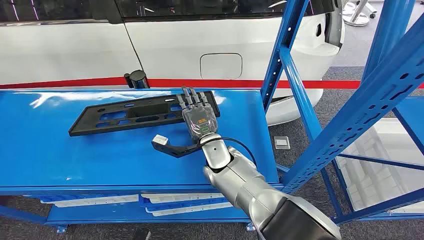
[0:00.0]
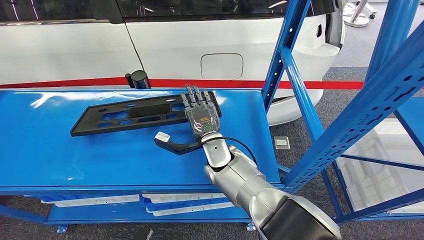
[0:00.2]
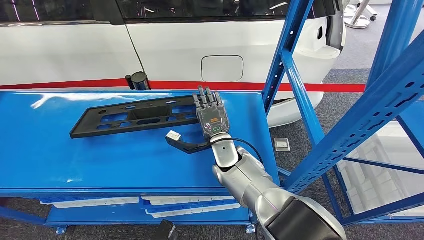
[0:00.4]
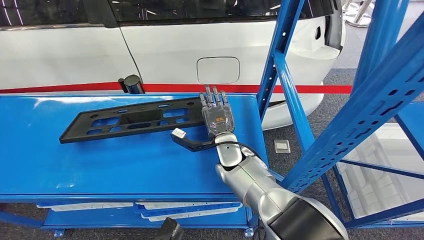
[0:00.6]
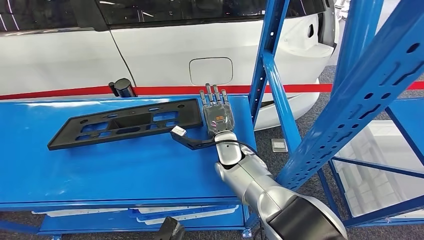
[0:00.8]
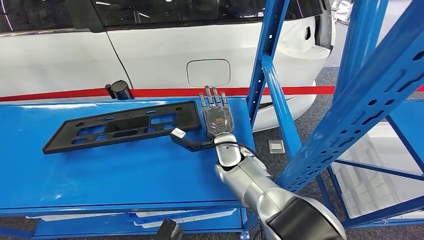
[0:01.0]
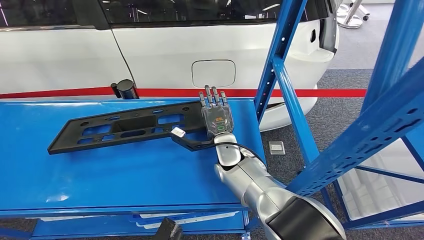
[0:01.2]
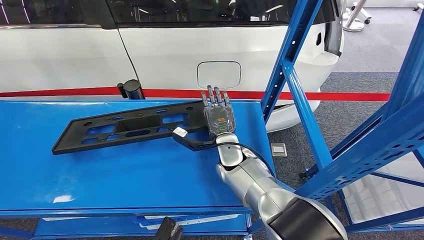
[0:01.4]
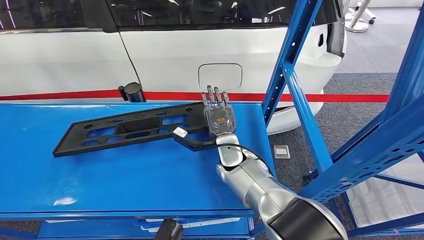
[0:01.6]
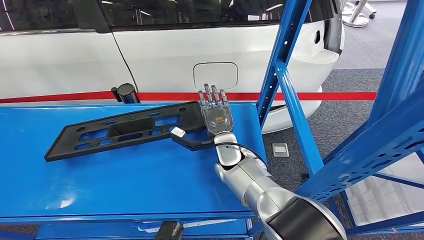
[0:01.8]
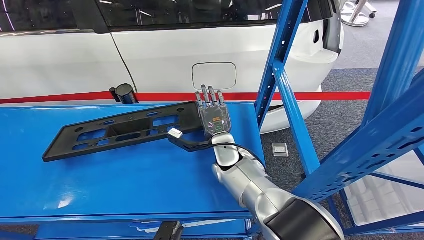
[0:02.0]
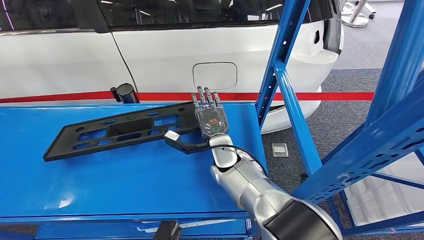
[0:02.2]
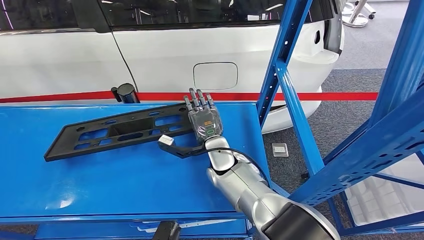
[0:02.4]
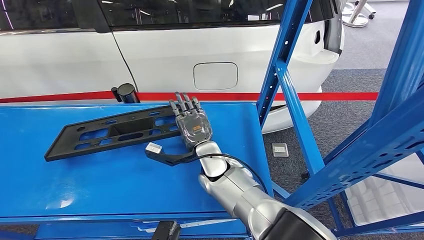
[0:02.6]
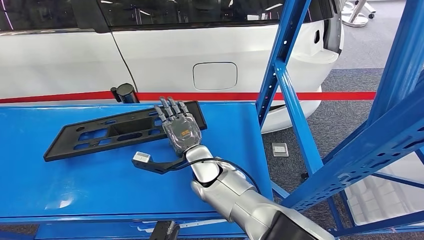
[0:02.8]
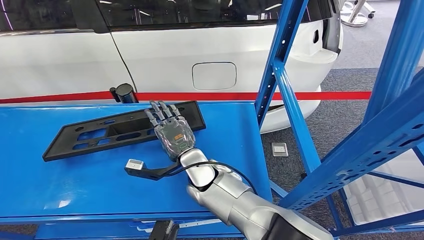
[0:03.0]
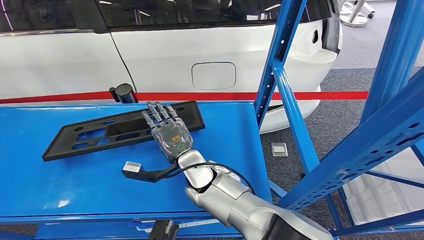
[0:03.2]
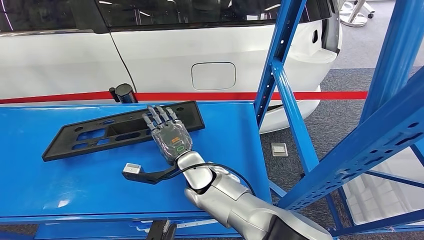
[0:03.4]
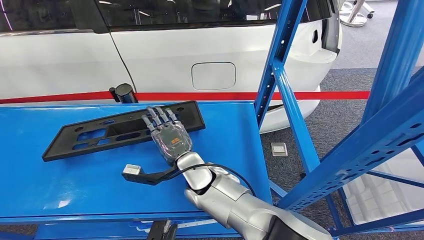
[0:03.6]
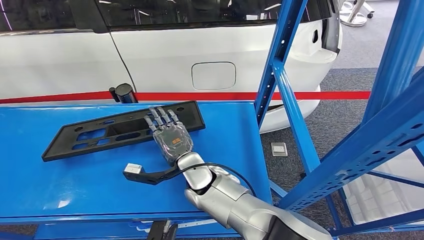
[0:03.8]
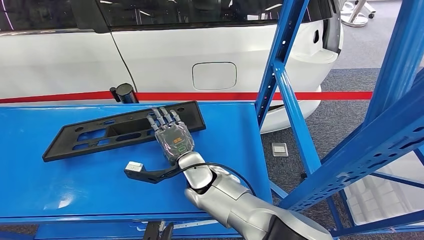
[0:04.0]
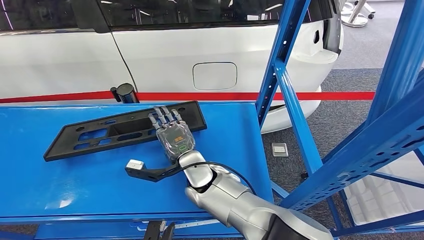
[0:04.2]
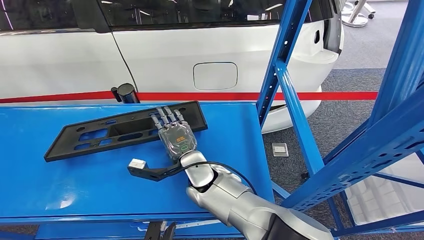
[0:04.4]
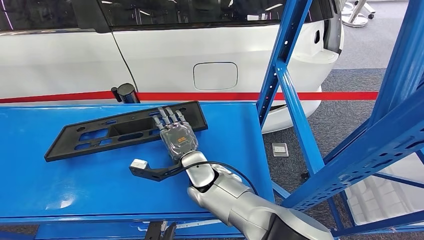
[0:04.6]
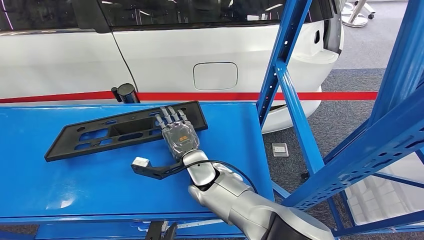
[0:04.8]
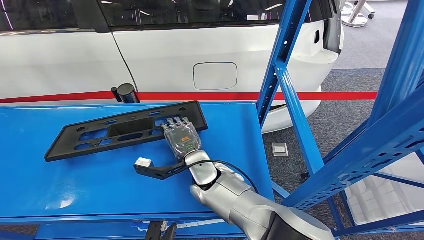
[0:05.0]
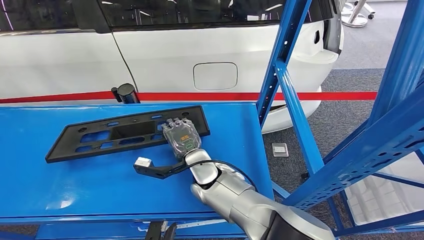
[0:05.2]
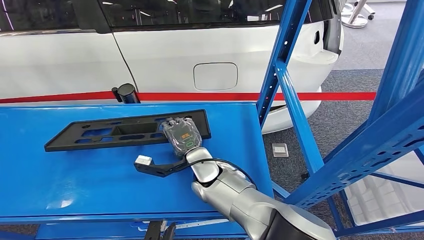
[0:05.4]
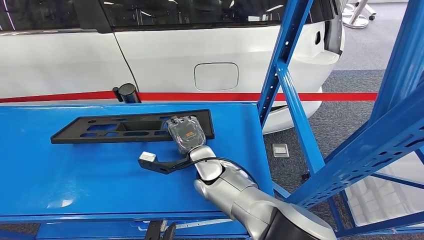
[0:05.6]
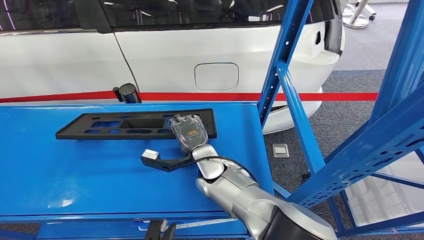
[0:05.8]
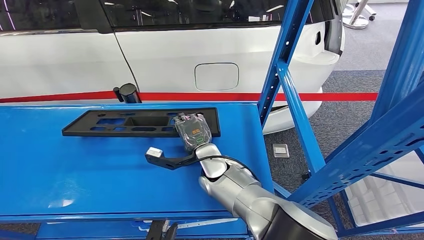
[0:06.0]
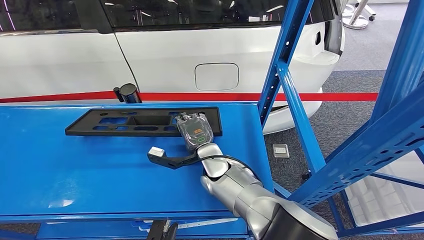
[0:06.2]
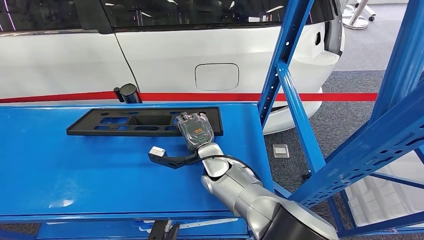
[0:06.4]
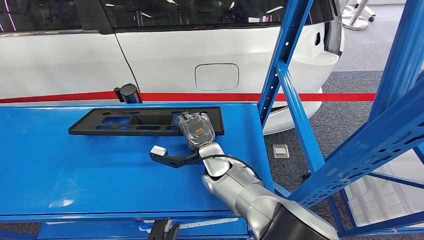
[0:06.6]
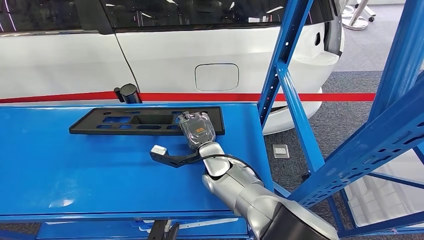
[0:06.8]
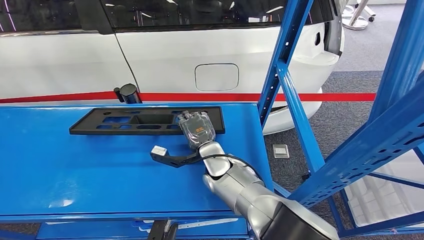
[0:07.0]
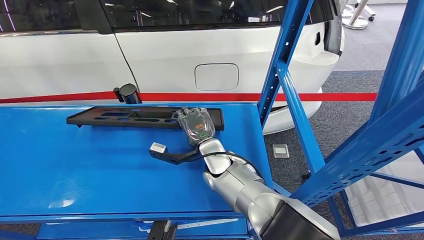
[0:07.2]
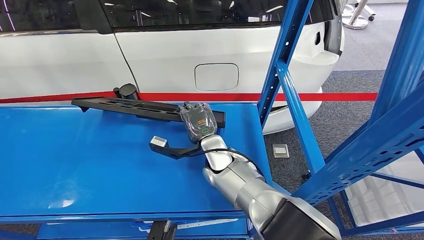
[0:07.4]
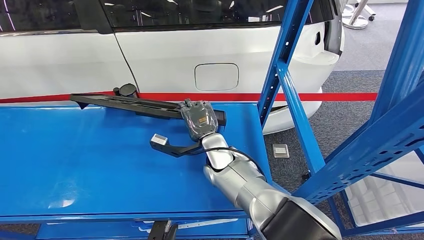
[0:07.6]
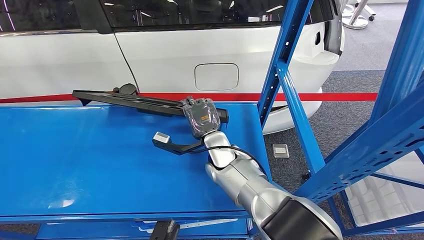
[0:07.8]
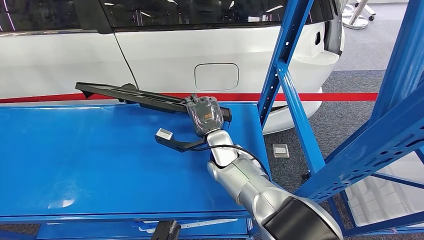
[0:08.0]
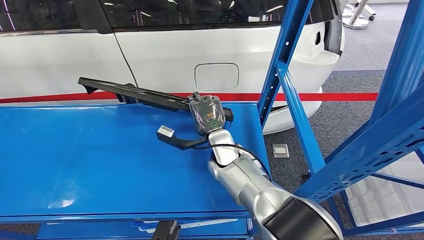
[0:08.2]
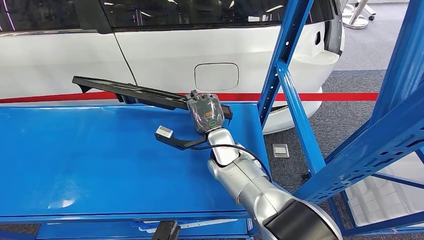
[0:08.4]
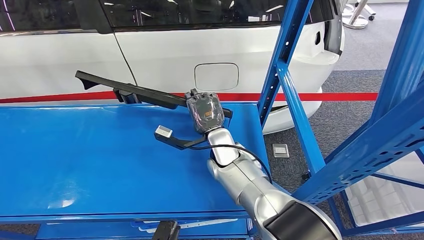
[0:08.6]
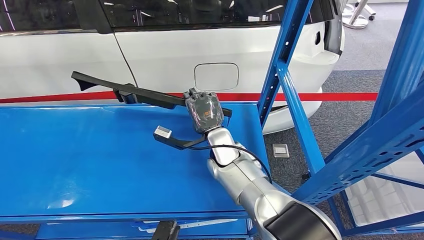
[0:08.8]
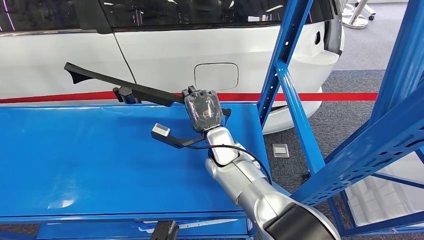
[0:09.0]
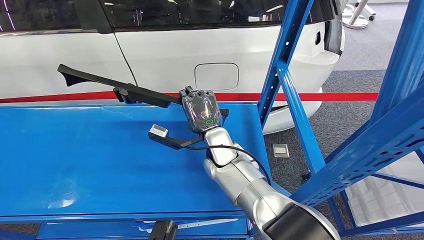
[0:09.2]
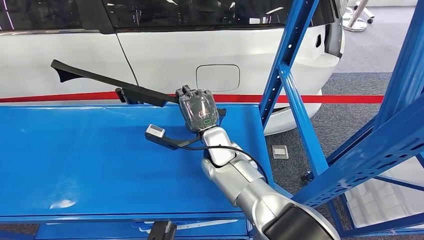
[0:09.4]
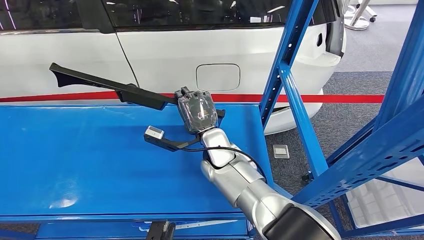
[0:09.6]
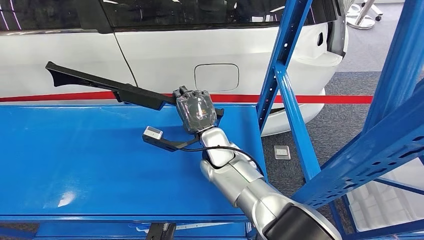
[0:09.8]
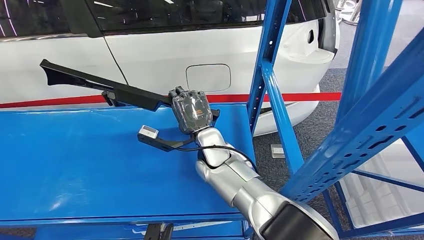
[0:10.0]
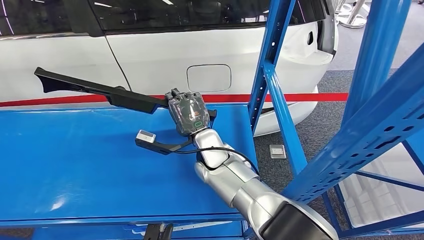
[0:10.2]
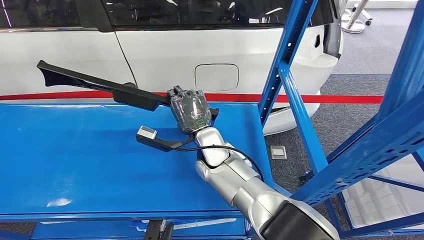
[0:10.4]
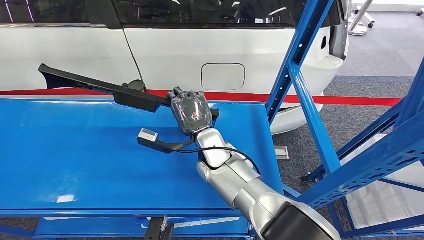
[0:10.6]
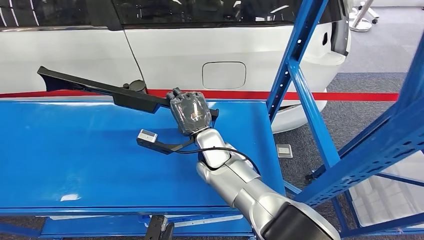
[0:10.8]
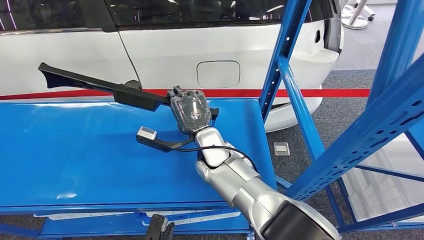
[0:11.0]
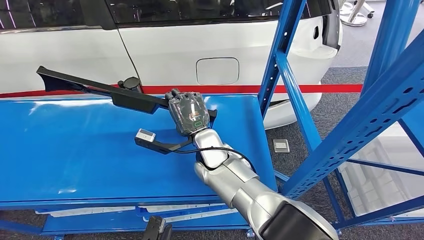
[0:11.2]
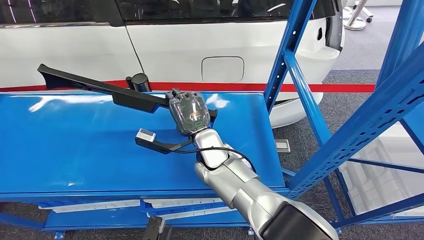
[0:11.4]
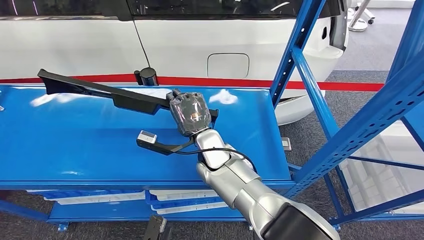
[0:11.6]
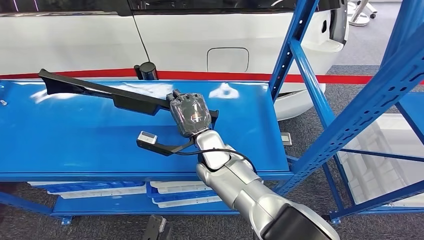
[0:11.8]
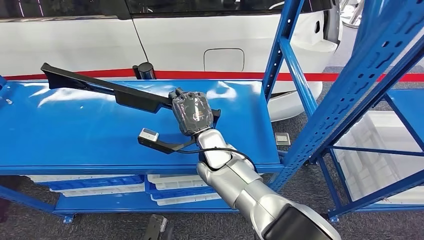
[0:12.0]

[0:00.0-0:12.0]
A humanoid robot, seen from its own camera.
0:03.0 to 0:04.4: The hands stay close to where they were, moving slightly.
0:04.4 to 0:06.0: The right hand changes place by roughly 5 cm.
0:06.0 to 0:07.6: The hands stay close to where they were, moving slightly.
0:07.6 to 0:09.0: The hands move only a little.

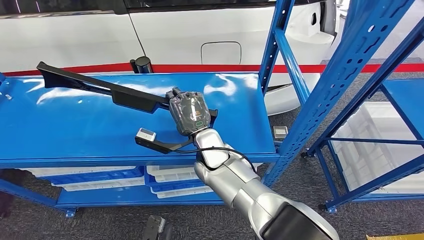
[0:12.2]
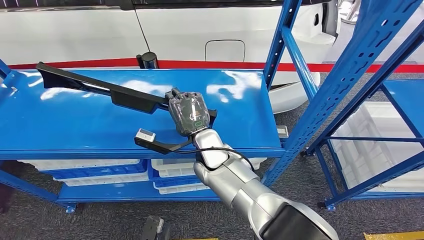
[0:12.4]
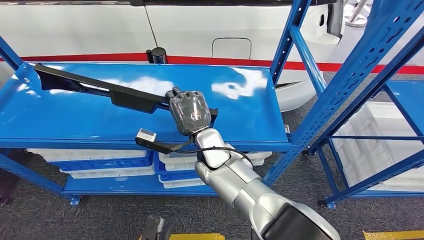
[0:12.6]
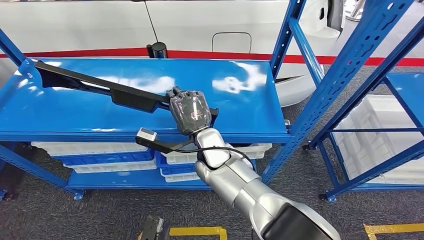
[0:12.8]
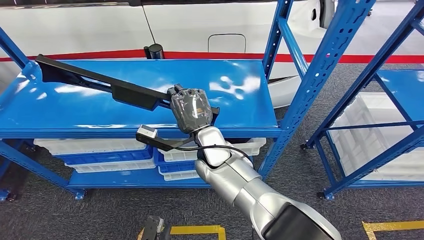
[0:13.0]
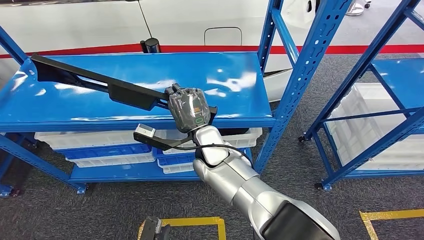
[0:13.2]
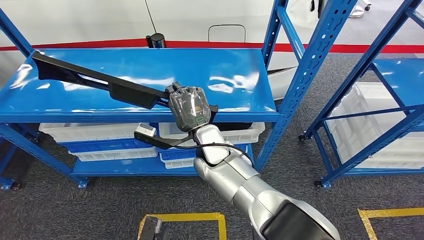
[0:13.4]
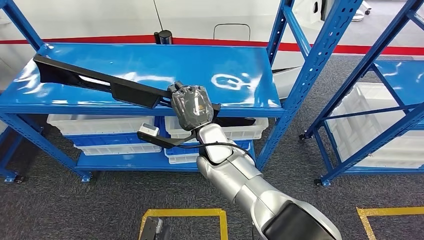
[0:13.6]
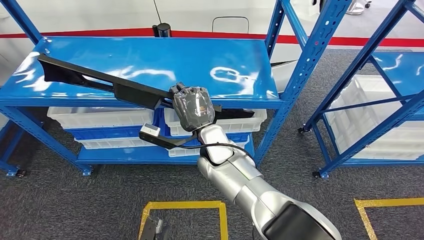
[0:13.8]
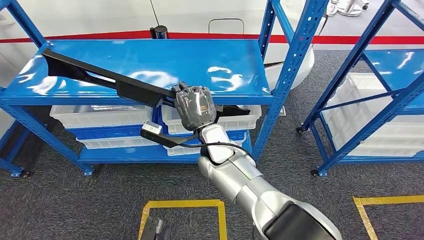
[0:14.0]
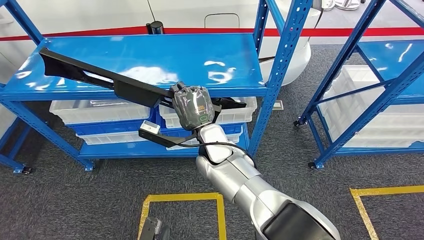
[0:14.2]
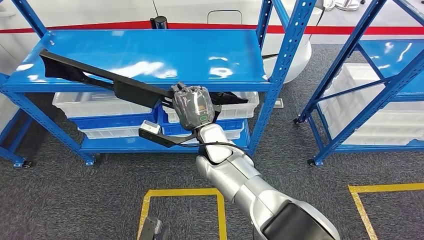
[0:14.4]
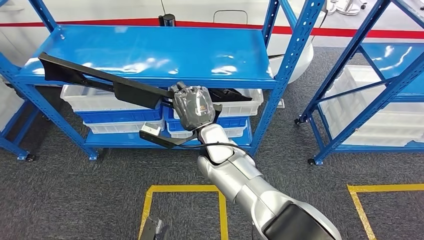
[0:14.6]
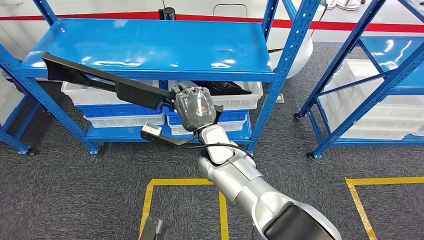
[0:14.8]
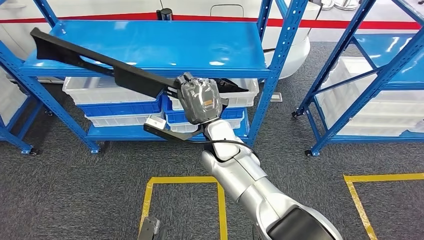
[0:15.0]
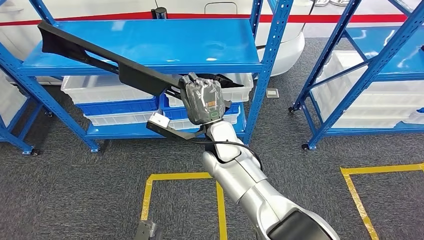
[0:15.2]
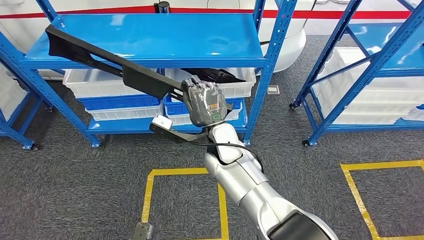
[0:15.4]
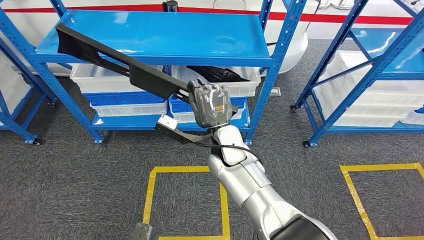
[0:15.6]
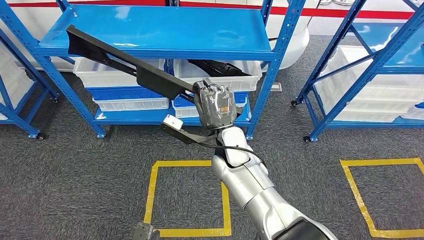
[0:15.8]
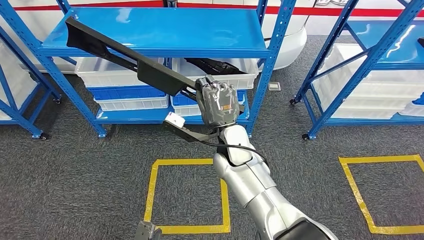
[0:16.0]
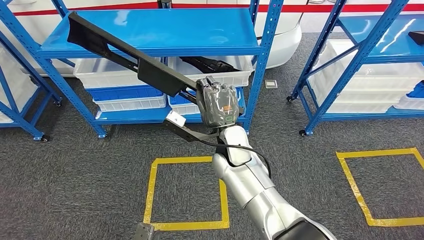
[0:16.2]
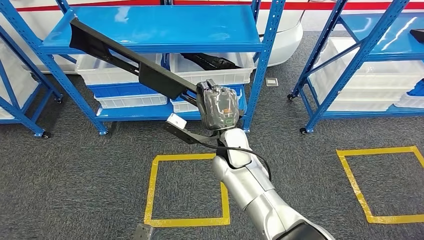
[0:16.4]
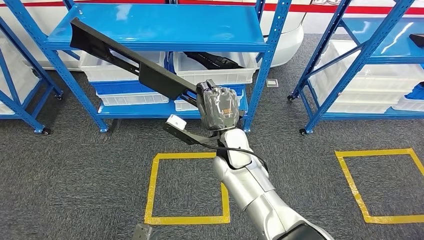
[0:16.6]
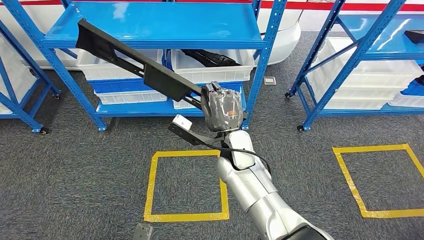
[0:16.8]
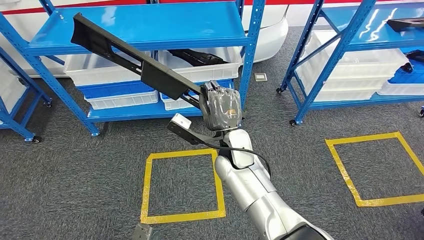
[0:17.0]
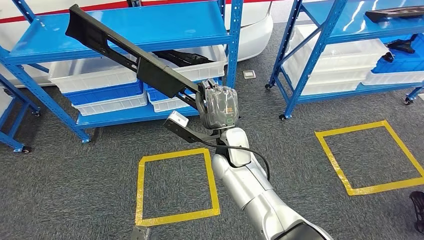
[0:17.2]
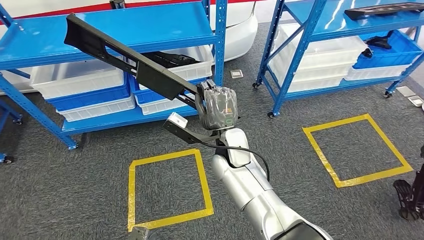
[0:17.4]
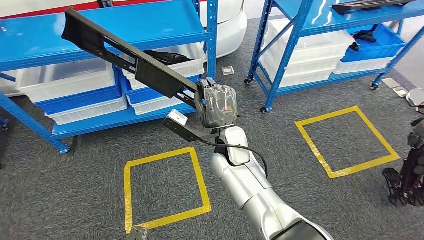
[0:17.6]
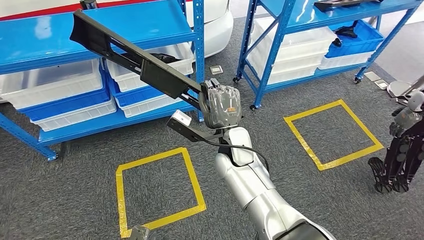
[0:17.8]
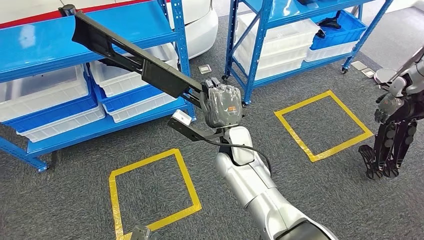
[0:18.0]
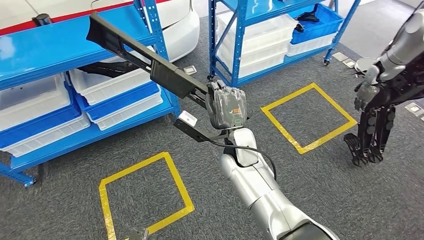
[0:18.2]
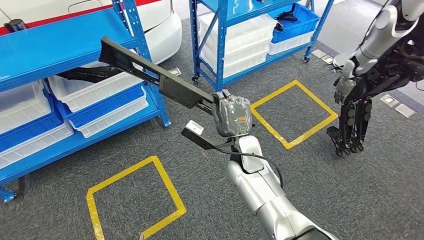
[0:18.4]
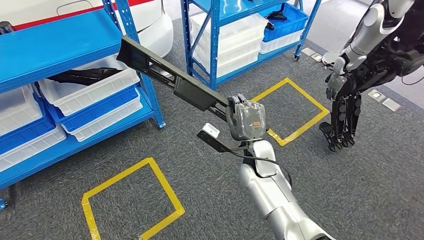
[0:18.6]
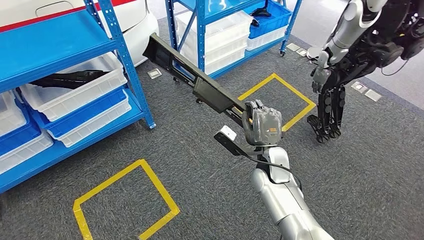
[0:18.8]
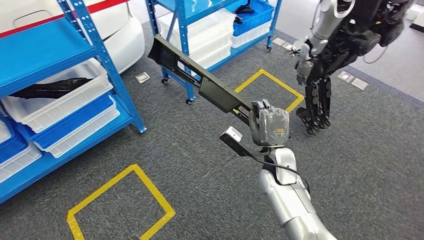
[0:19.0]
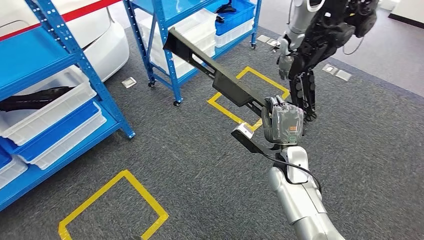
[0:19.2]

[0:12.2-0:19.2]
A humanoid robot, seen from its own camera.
Step, 0:12.2 to 0:16.0: Pick up the large material from the shelf.
